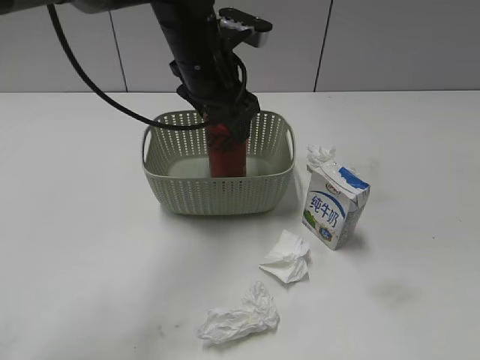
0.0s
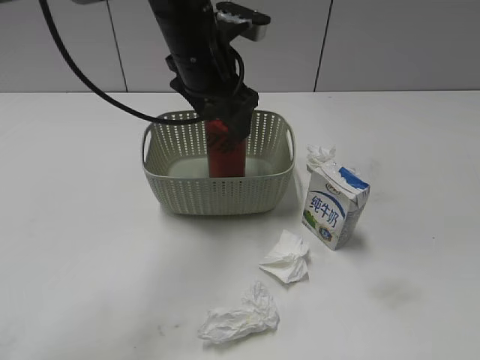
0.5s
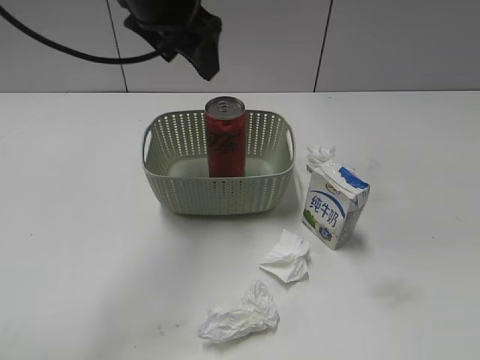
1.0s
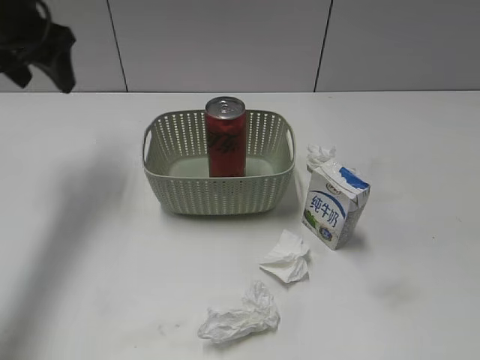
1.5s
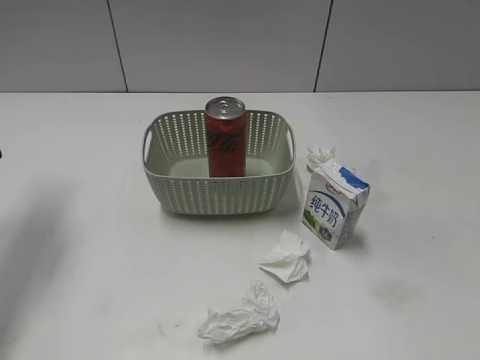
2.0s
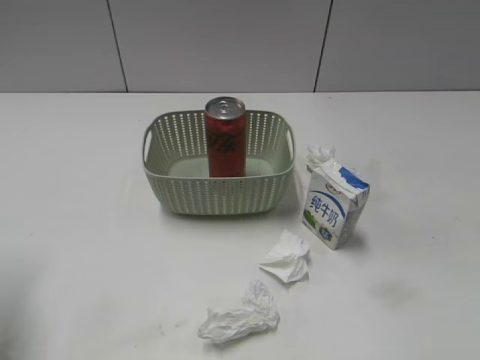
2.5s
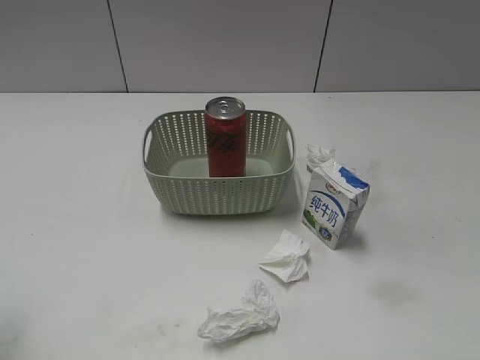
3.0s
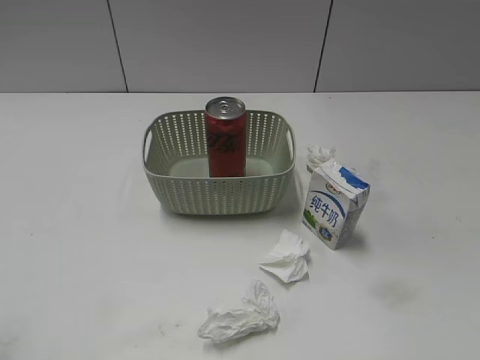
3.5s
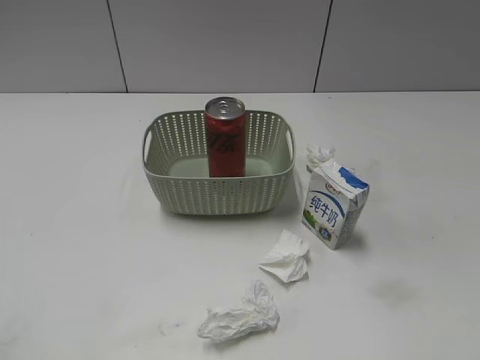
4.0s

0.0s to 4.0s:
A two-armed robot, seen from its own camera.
0.0s to 2.0s: The left gripper travels to the left by approximately 25 cm, and opens up.
2.0s to 4.0s: The left gripper heads backward, covering approximately 30 cm.

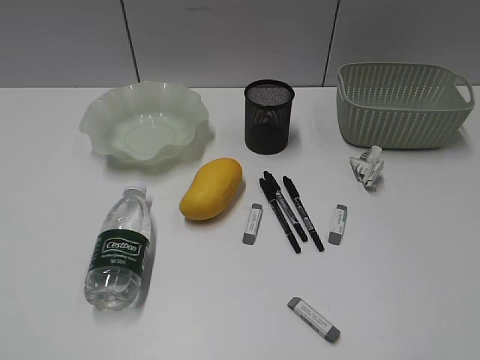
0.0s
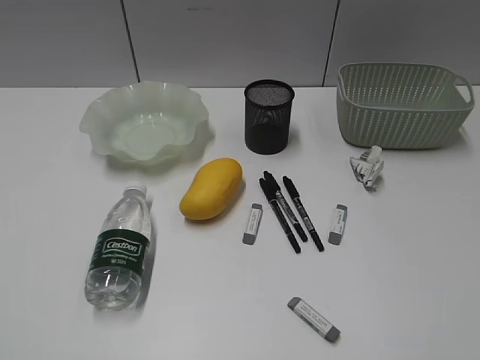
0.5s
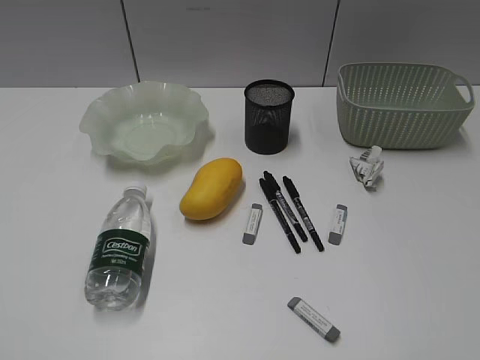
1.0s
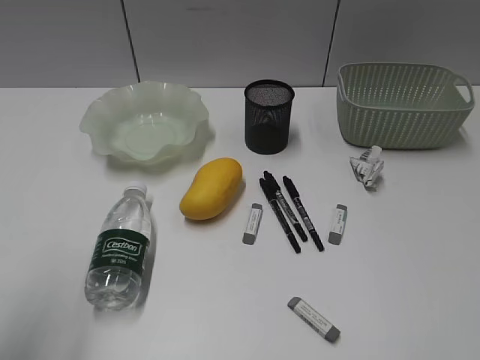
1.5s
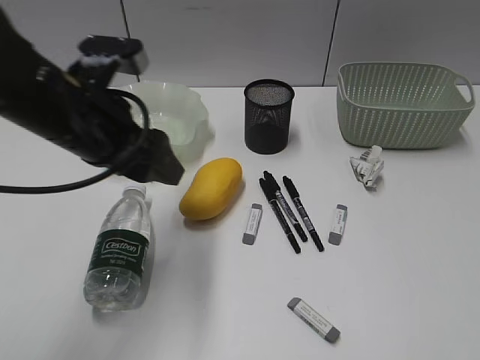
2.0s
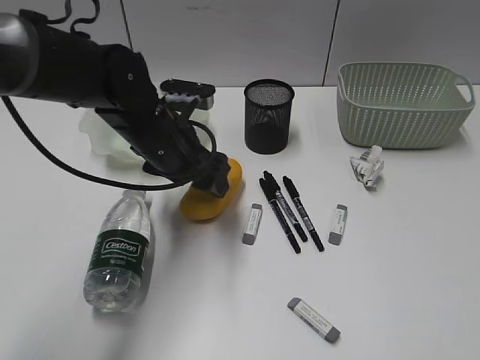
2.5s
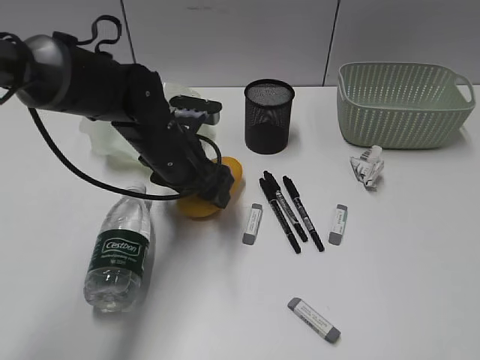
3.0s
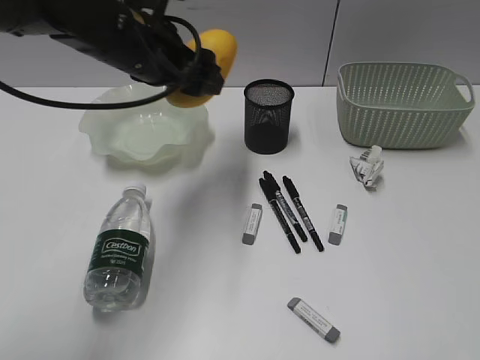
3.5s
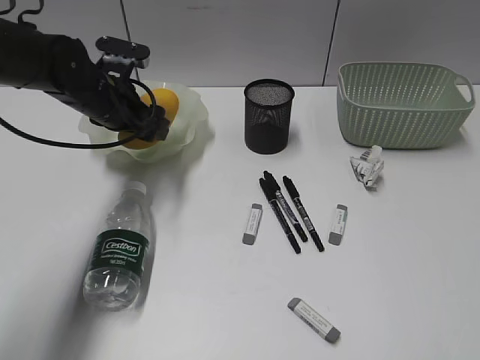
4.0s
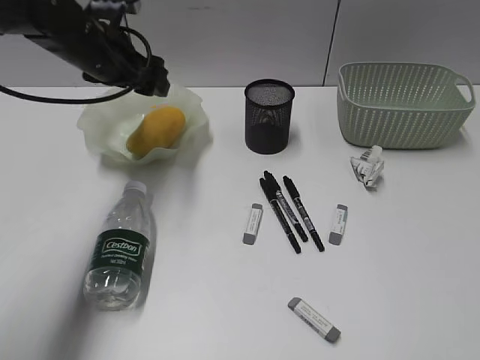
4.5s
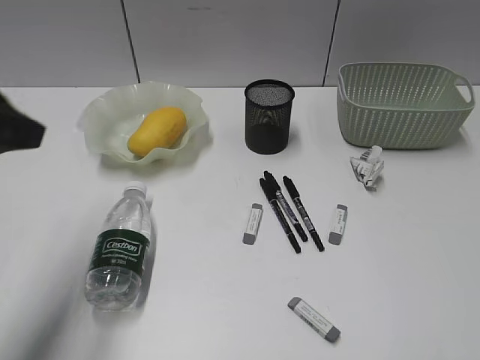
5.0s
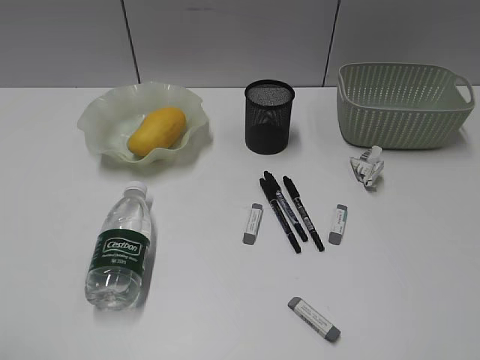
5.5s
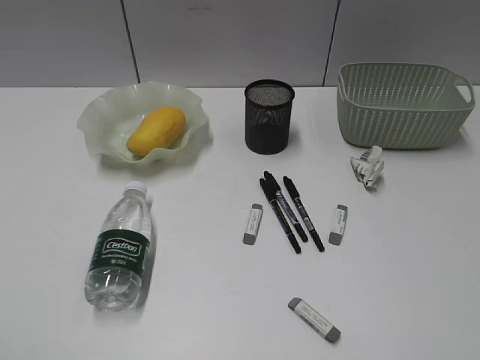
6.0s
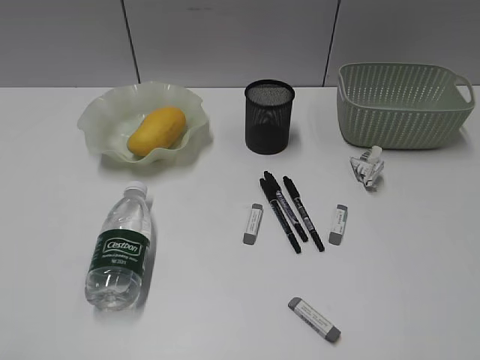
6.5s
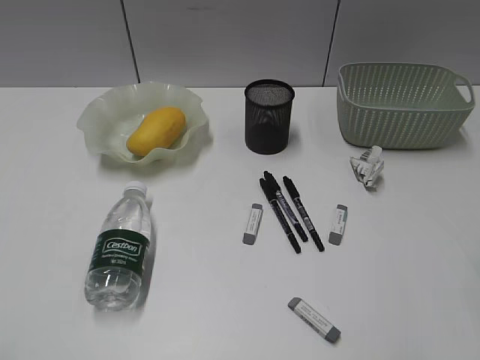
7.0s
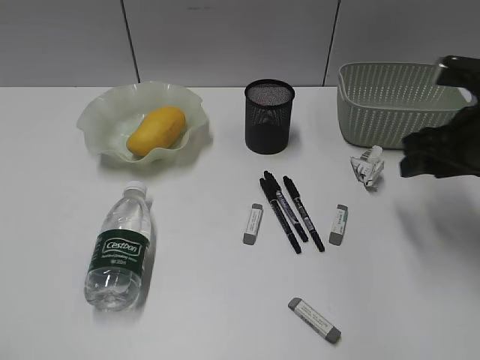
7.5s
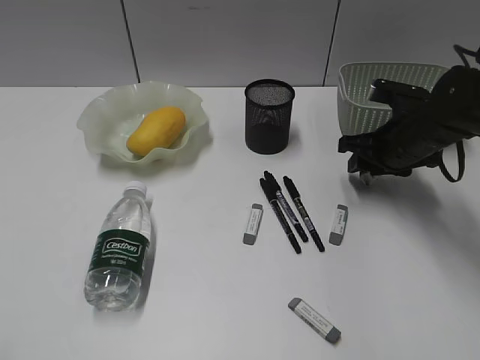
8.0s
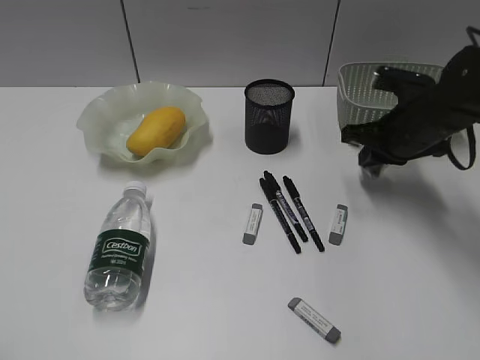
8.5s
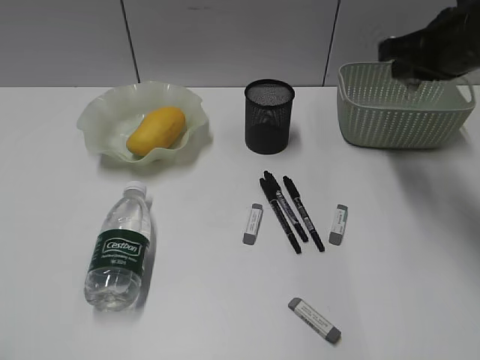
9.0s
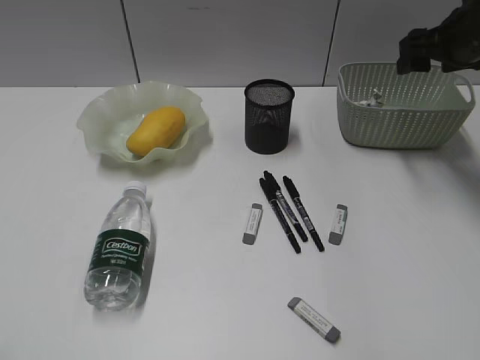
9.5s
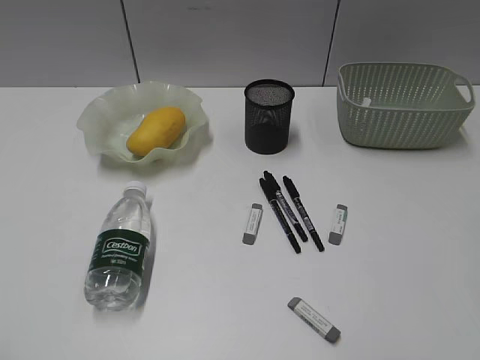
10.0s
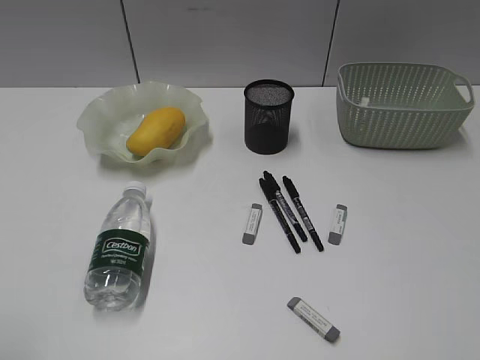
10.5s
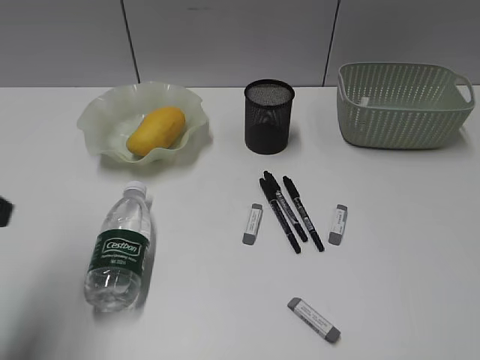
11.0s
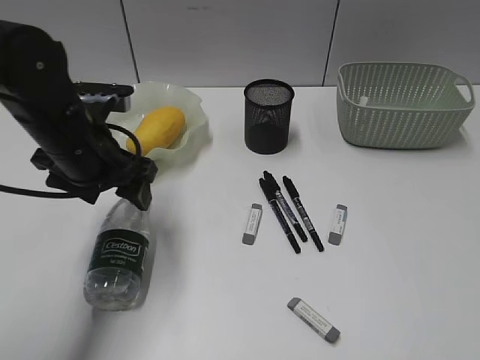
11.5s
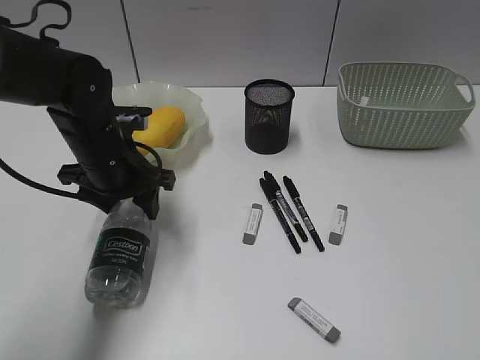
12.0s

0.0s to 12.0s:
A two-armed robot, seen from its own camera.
Step, 1.5s to 3.0s: Grasp the mango with left gripper.
Step, 3.5s to 4.0s: Place the mango in the plate with left gripper.
Step, 4.5s to 8.0s: Grasp the waste paper with right gripper.
Step, 8.5s to 9.5s: Place the waste paper in the basket with right gripper.
Step, 10.0s to 12.0s: Grasp the bottle with left gripper.
2.0s to 4.0s: The left gripper is displaced forward and downward by approximately 15 cm.
4.0s to 6.0s: The left gripper moves backward, about 40 cm.
6.0s to 8.0s: The right gripper travels forward and downward by approximately 40 cm.
8.0s to 10.0s: The right gripper is displaced backward and upward by approximately 25 cm, and closes, then reopens.
10.0s to 12.0s: The right gripper travels backward by roughly 20 cm, while the left gripper goes some 40 cm forward, to the right and downward.

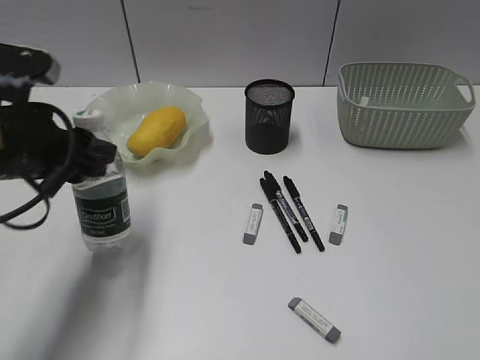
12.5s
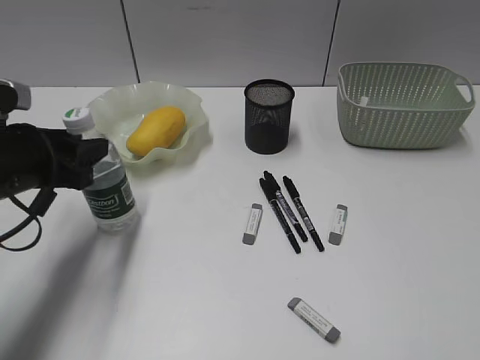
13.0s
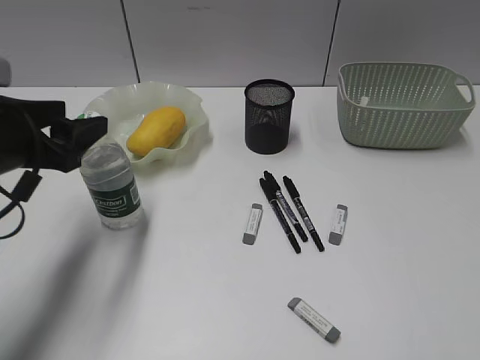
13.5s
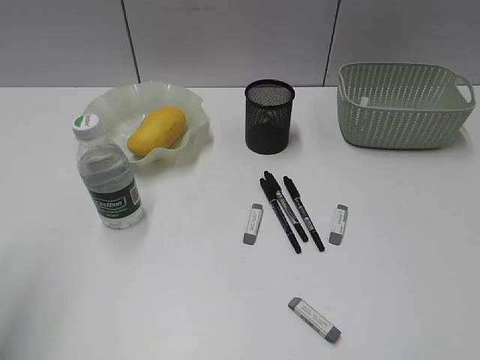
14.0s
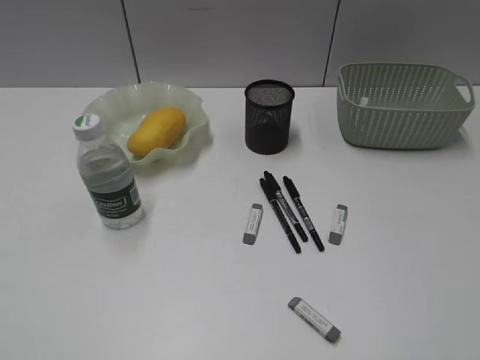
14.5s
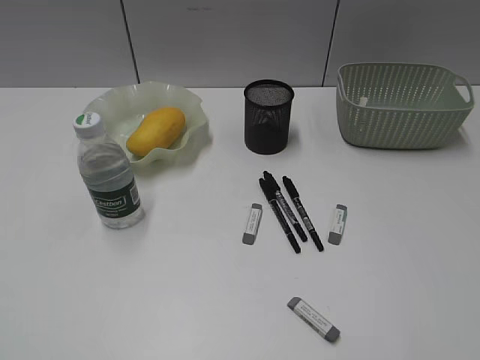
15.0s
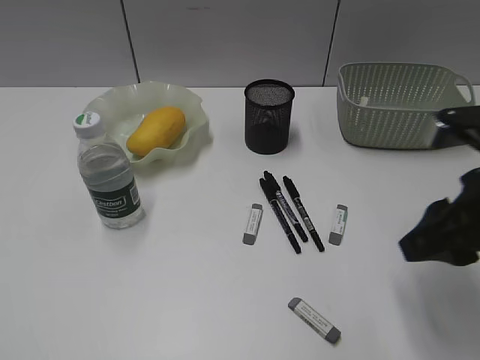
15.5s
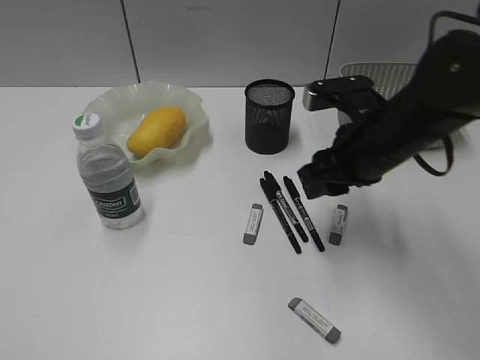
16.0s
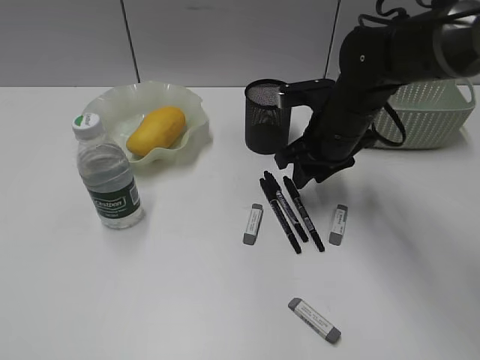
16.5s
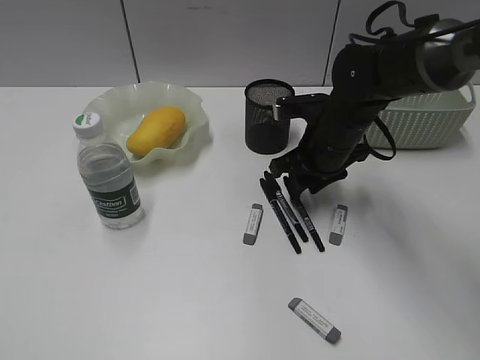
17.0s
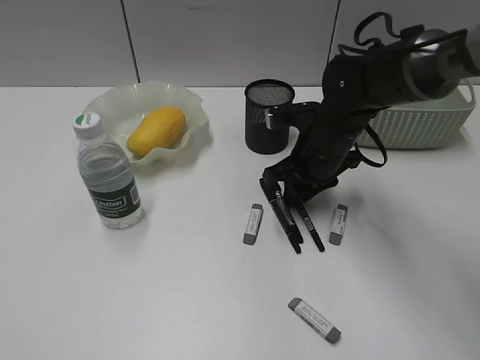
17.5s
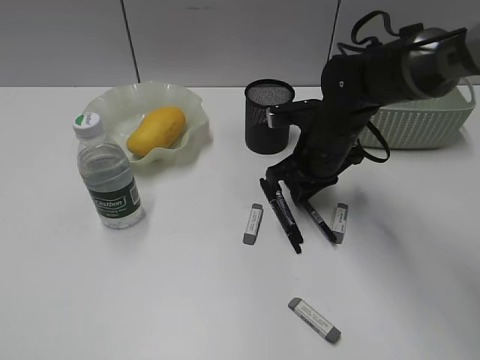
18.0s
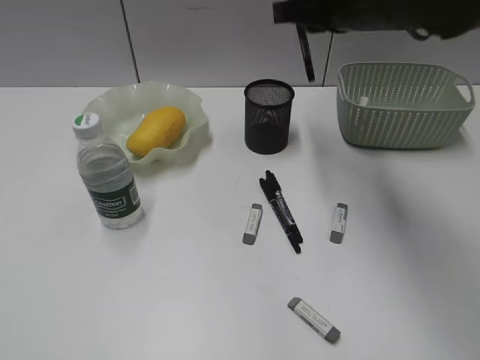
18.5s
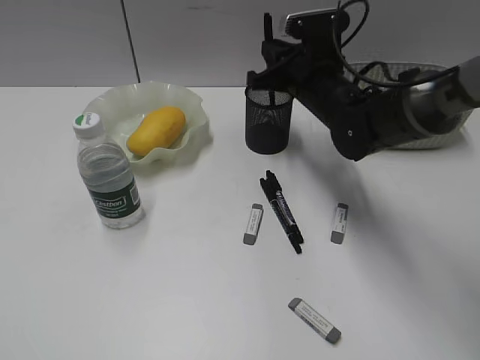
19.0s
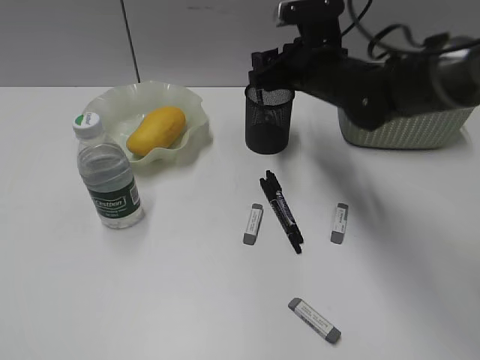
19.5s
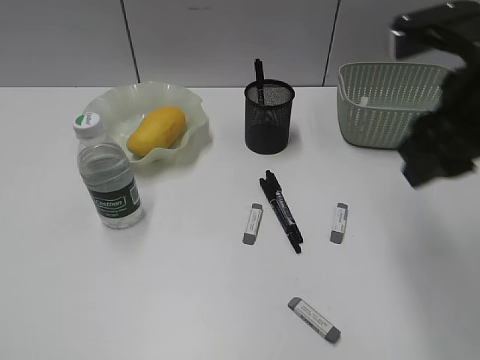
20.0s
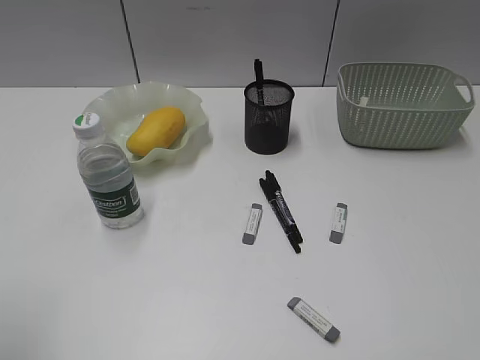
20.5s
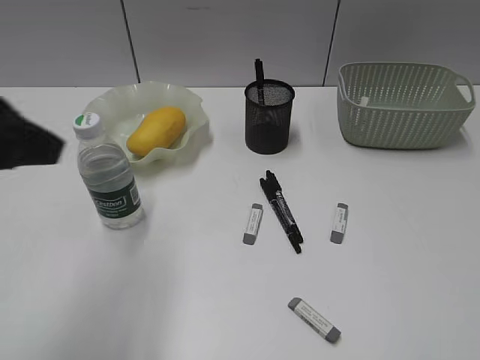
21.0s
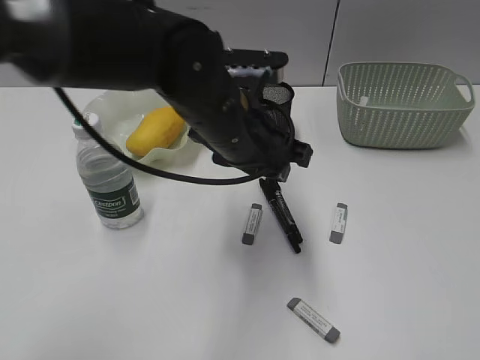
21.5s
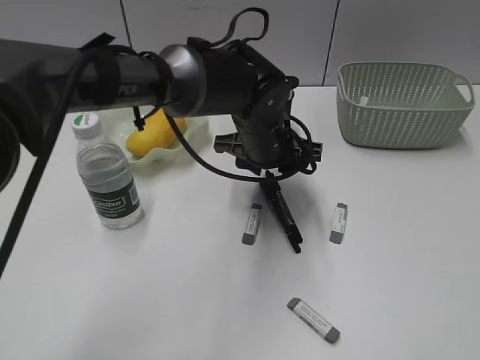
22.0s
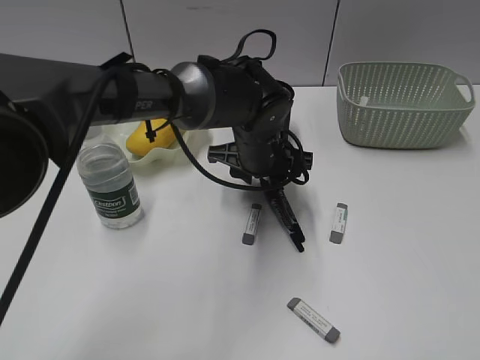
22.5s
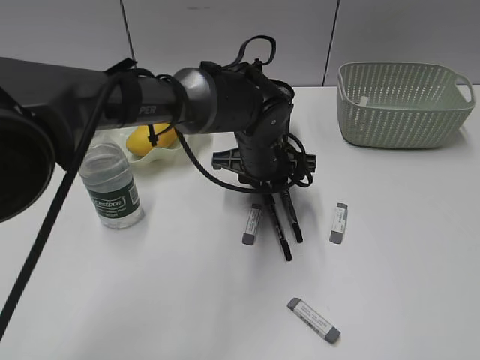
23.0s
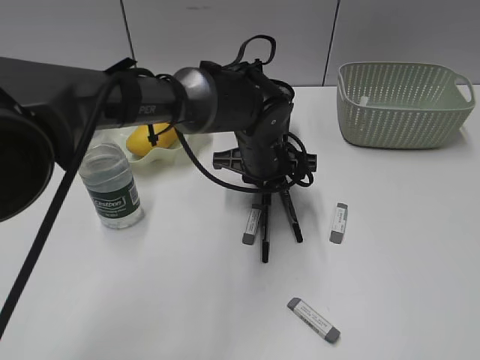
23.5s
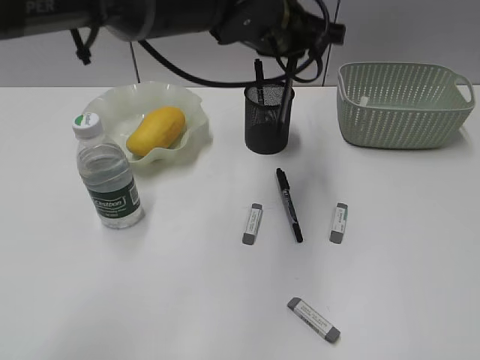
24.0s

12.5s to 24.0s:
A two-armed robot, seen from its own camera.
Step, 12.5s to 13.5s: Stand the bottle with left gripper.
Step, 14.0s to 17.5s: Grasp the black pen with right gripper.
Step, 18.0s to 19.0s: Place the black pen in pen holder with right gripper.
Step, 19.5s to 23.5s: Grasp the black pen with left gripper.
12.5s to 14.5s: The left gripper moves backward and to the left, about 30 cm, and opens, then closes once more.
14.5s to 16.5s: The right gripper moves forward and to the left, about 40 cm.
16.5s to 18.5s: The right gripper is displaced upward by approximately 15 cm, and closes up.
18.5s to 20.0s: The right gripper heads backward and to the right, covering some 15 cm, and opens.
20.0s to 22.0s: The left gripper shifts approximately 50 cm to the right, forward and downward; the right gripper moves backward and to the right, about 25 cm.
22.0s to 24.0s: The left gripper is displaced upward by some 15 cm, and closes up.
